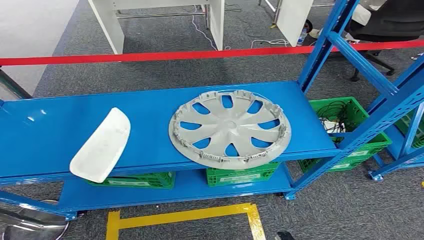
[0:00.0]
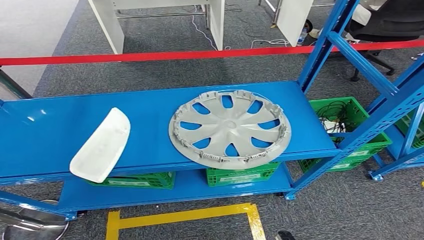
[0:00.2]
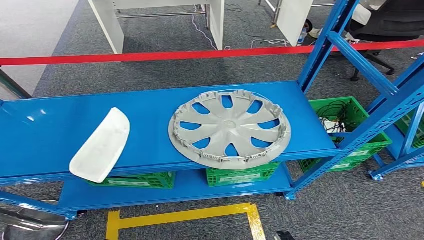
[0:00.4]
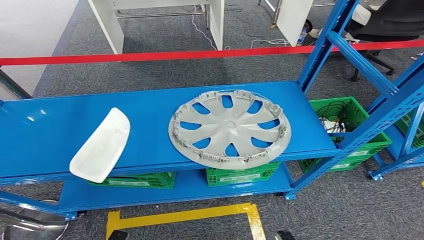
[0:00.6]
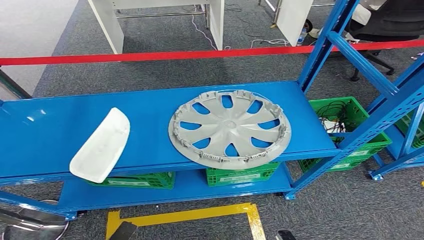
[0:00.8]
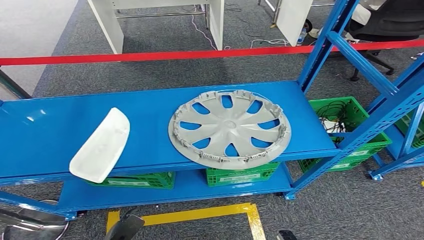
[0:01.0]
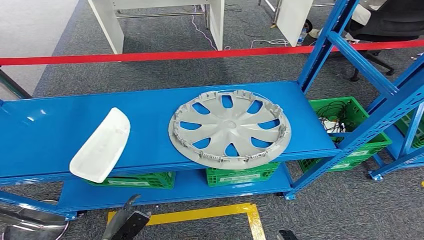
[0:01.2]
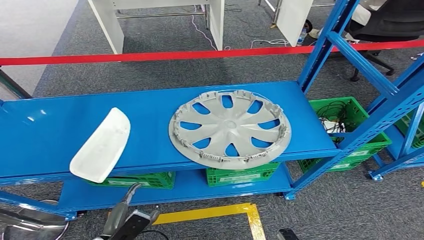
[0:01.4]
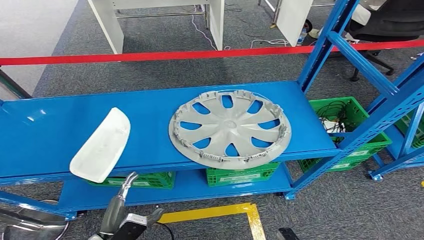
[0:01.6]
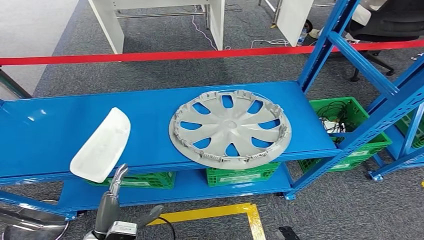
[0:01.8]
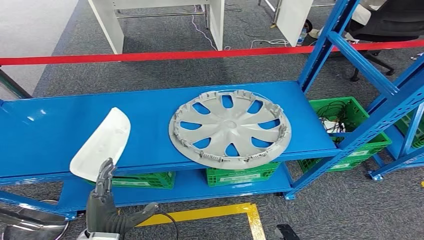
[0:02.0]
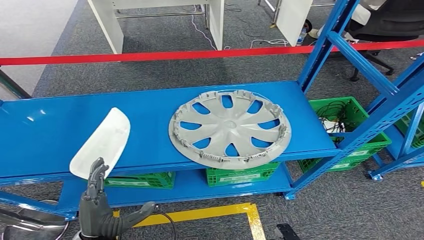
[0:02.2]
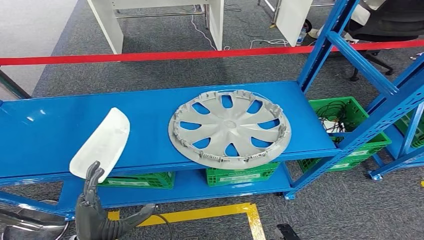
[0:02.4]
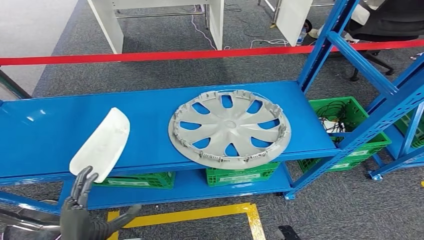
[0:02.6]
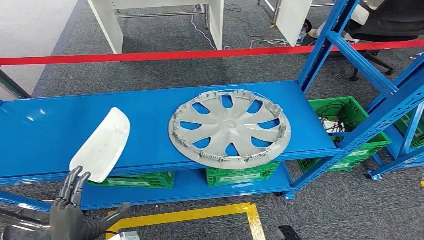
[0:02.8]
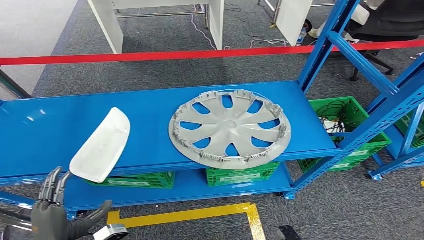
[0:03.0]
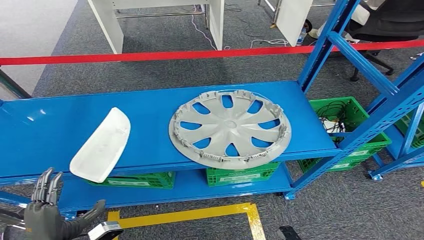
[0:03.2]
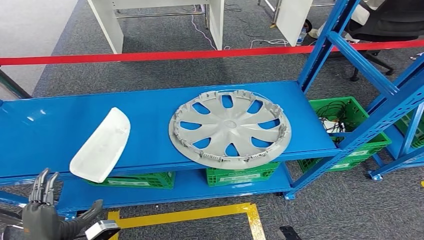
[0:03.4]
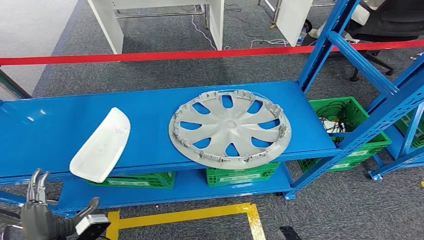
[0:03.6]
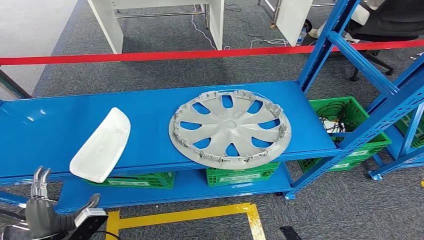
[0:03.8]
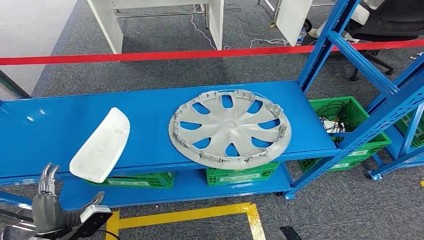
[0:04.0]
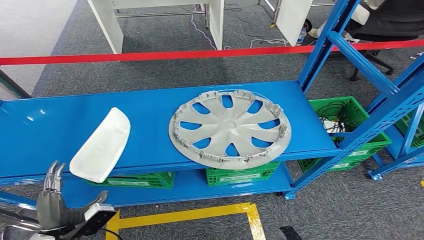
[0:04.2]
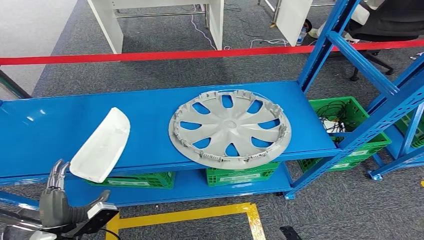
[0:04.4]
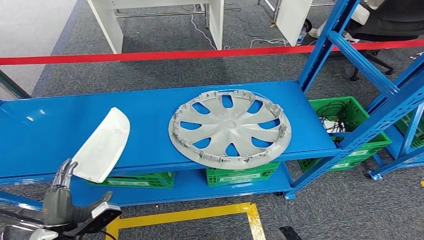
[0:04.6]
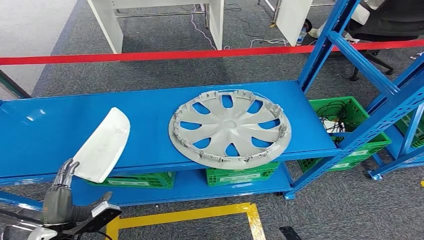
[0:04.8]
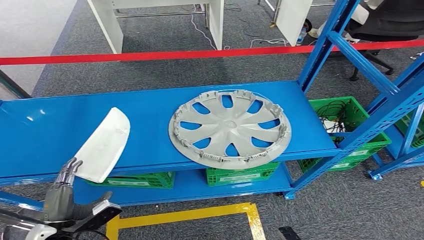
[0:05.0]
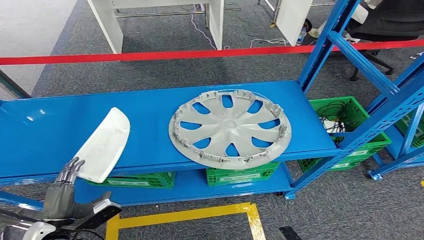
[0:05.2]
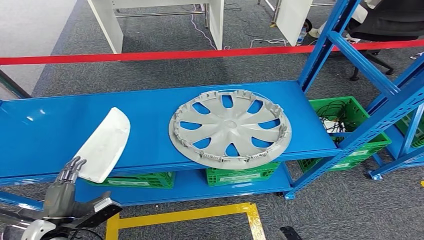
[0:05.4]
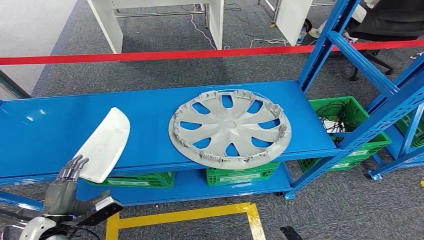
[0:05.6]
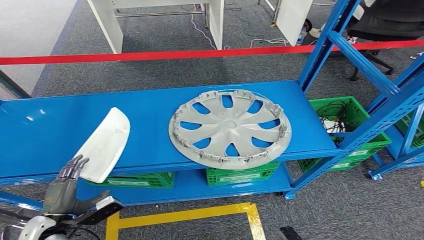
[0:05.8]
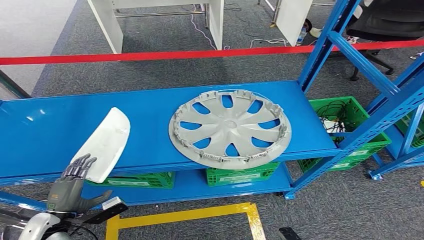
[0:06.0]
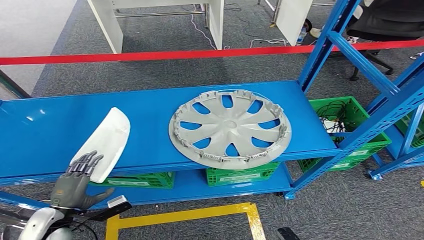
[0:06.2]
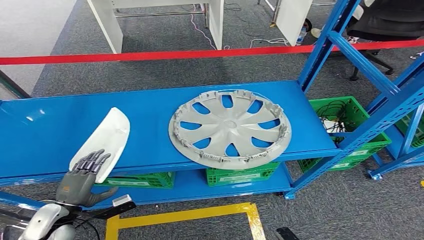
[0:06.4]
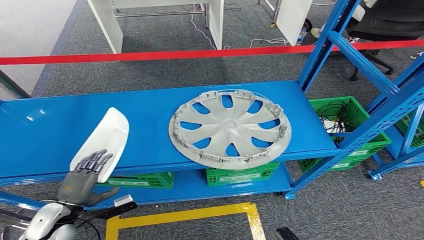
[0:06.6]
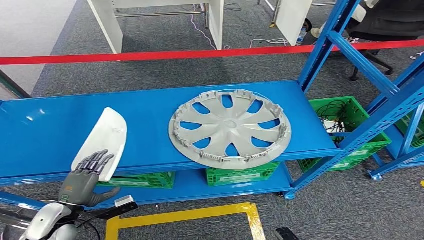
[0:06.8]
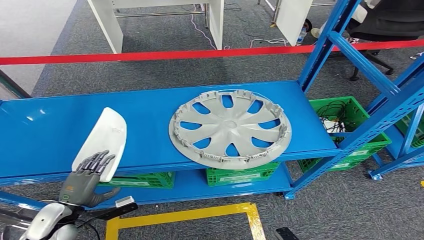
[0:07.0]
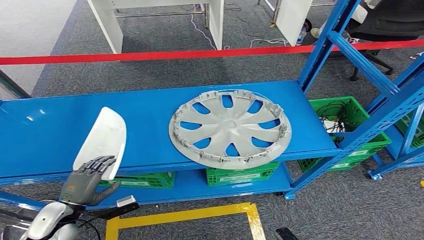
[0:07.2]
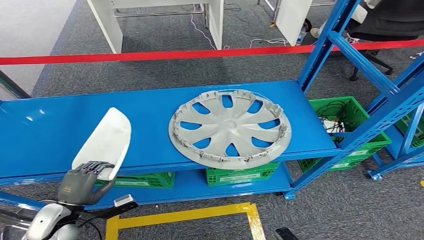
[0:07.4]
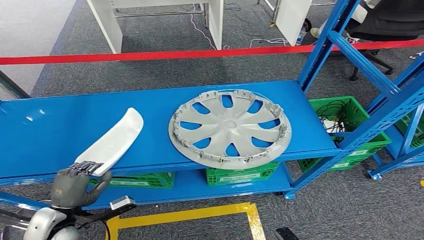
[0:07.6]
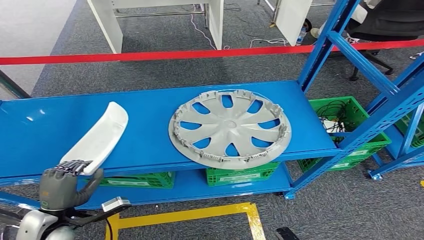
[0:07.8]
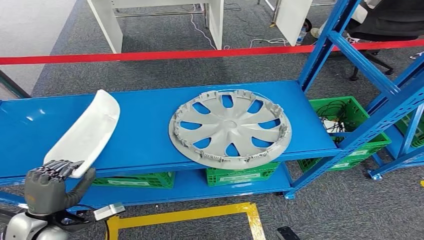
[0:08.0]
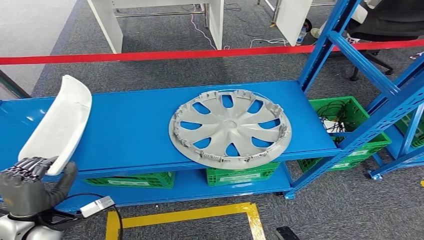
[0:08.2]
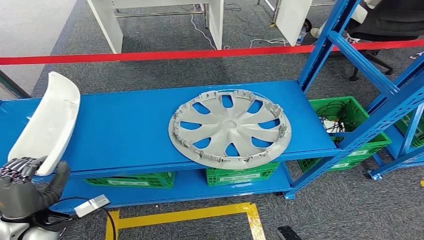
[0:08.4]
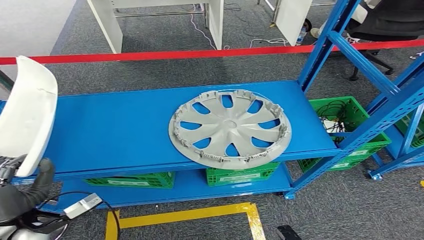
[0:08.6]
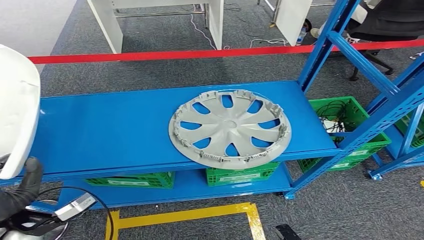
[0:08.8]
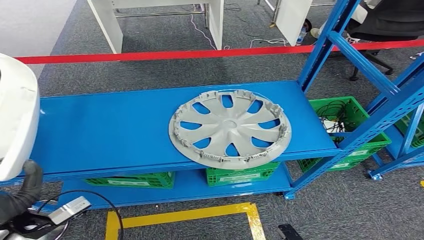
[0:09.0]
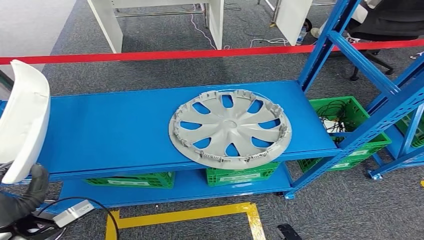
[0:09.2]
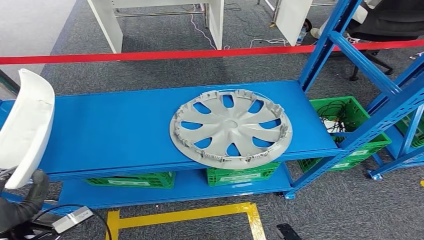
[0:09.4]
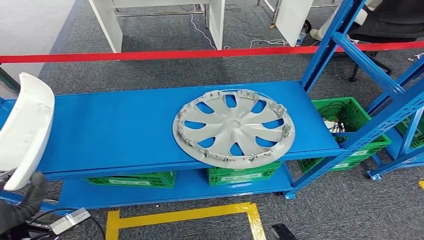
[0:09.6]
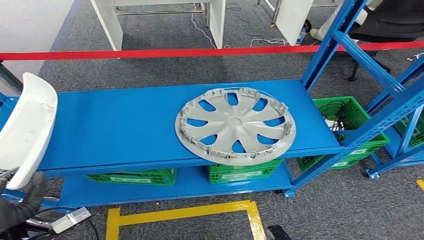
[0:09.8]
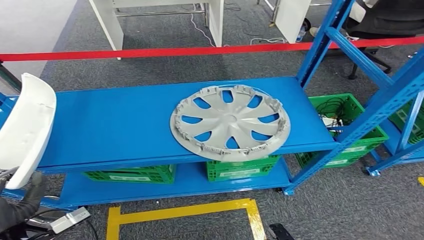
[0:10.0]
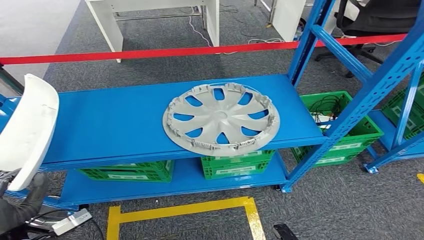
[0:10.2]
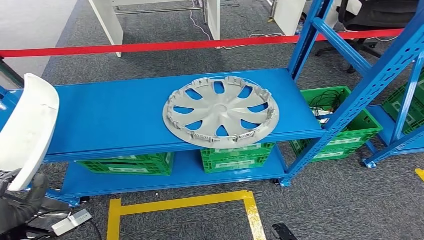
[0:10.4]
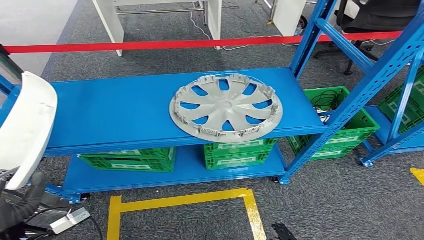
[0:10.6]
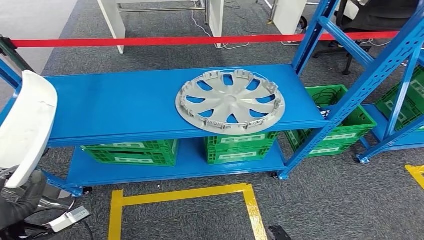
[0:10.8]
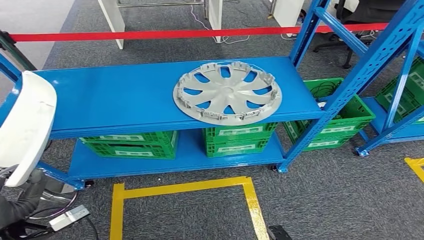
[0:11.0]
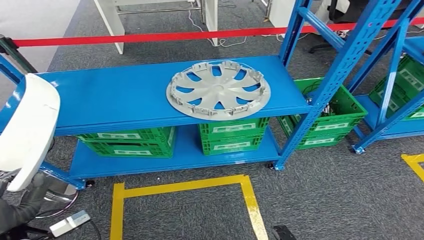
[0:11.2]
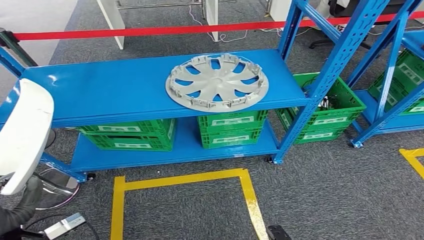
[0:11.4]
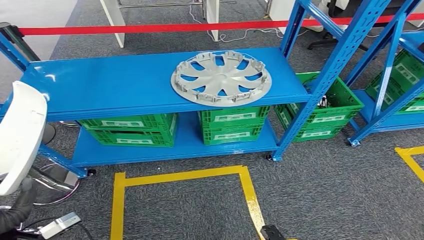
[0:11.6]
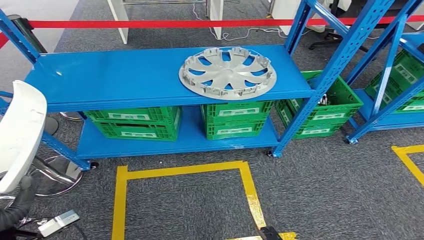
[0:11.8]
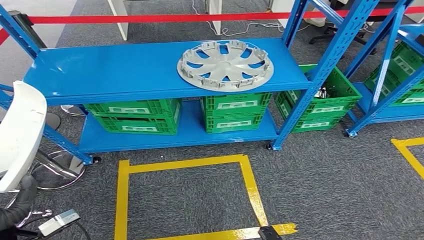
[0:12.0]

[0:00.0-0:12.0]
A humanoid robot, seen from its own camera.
Step, 0:00.0 to 0:09.8: Pick up the small component from the shelf.
0:01.6 to 0:03.0: The left hand is displaced upward and to the left by about 10 cm.
0:03.0 to 0:04.4: The left hand moves approximately 5 cm.
0:04.4 to 0:06.0: The left hand moves roughly 5 cm.
0:06.0 to 0:07.6: There are only small adjustments of the hands.
0:07.6 to 0:09.0: The left hand travels upward by some 10 cm.

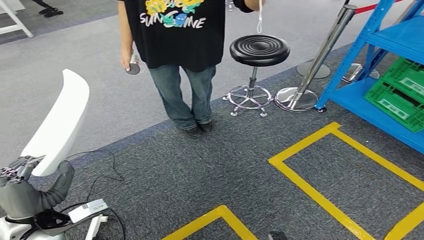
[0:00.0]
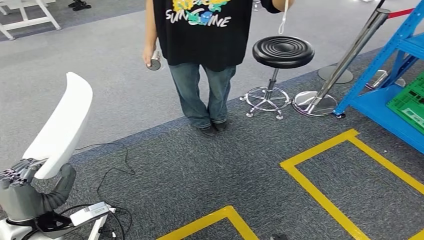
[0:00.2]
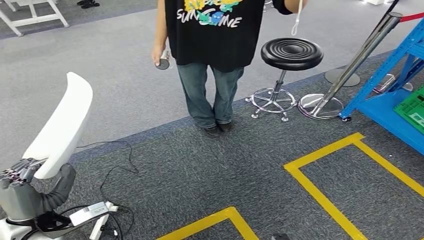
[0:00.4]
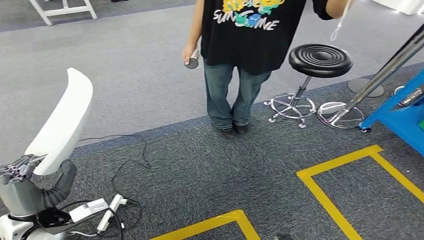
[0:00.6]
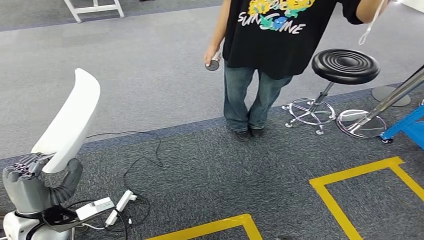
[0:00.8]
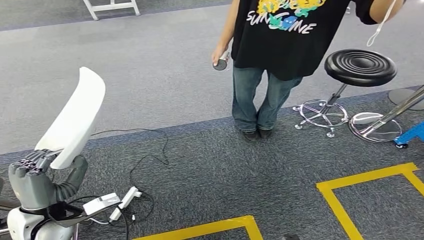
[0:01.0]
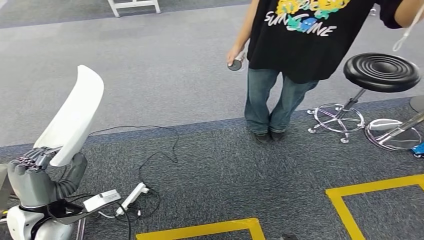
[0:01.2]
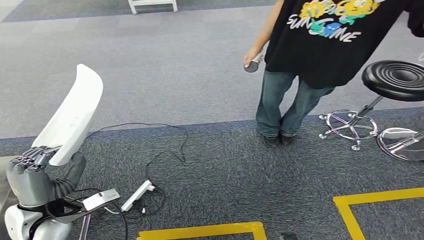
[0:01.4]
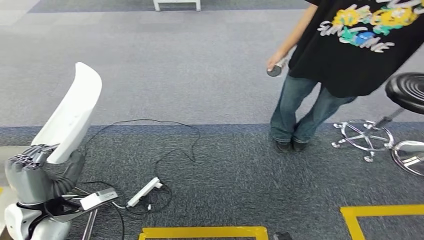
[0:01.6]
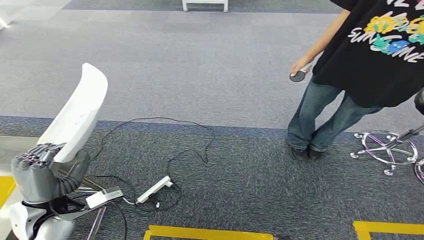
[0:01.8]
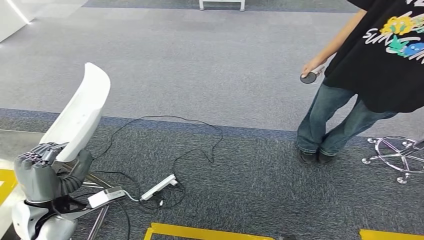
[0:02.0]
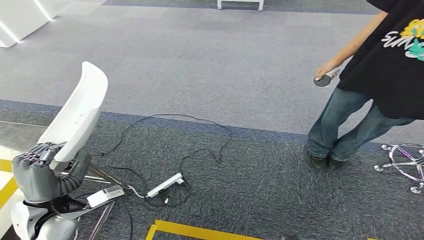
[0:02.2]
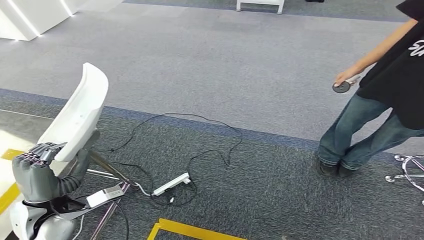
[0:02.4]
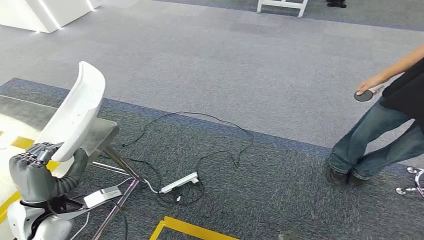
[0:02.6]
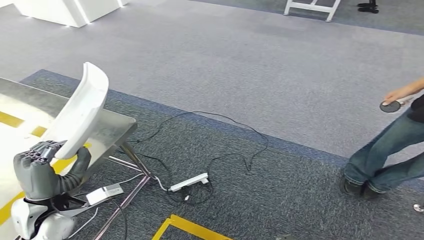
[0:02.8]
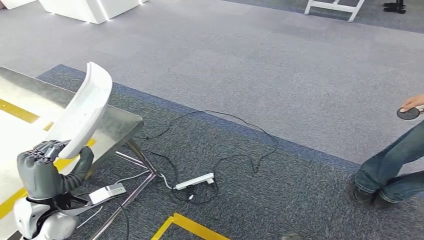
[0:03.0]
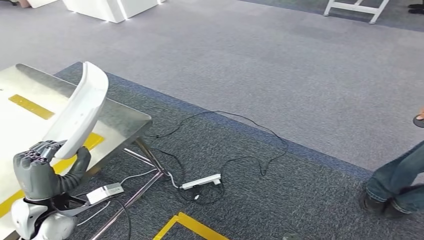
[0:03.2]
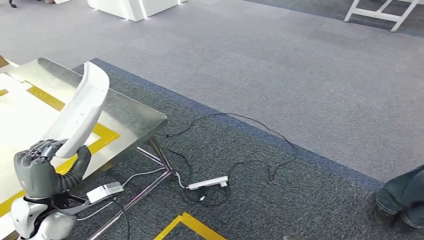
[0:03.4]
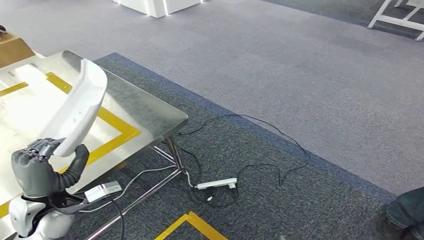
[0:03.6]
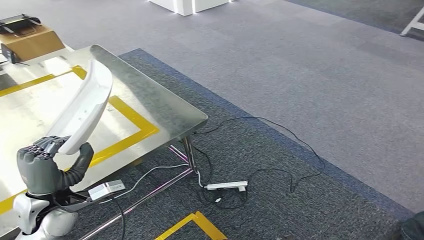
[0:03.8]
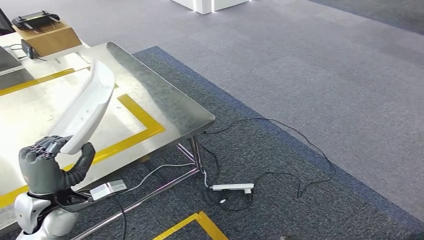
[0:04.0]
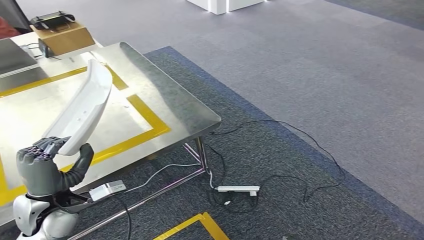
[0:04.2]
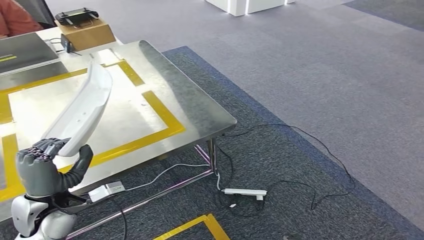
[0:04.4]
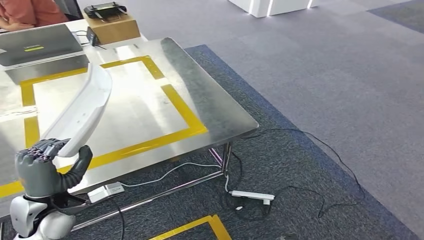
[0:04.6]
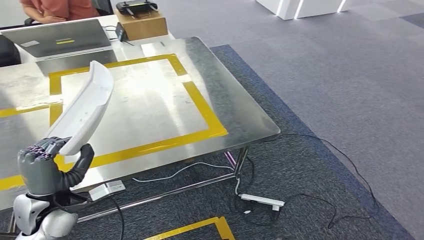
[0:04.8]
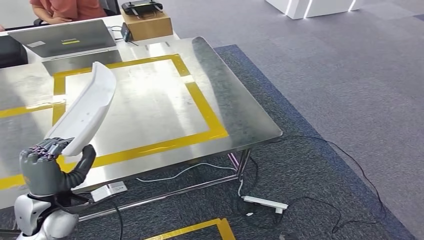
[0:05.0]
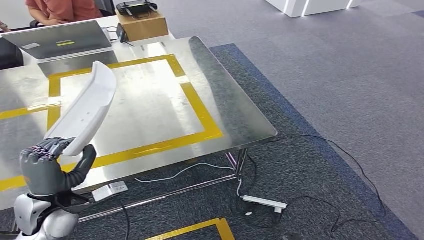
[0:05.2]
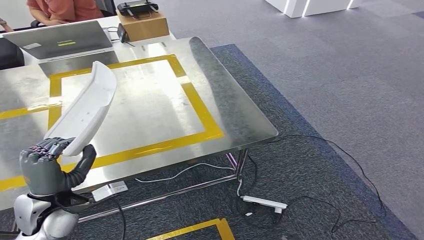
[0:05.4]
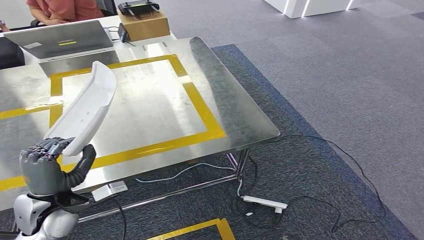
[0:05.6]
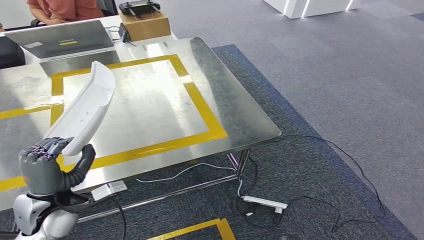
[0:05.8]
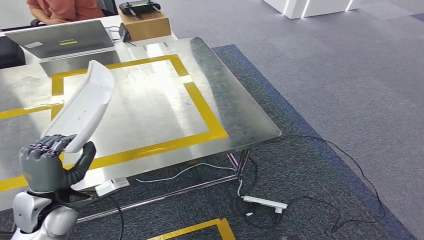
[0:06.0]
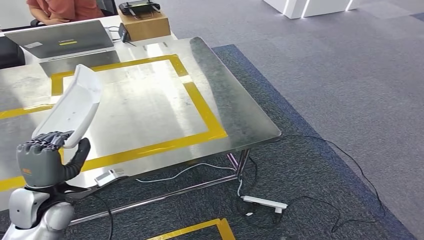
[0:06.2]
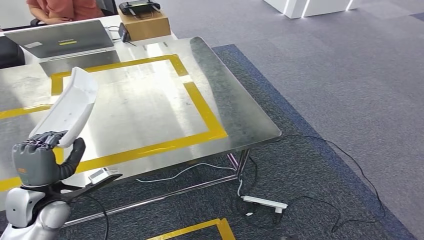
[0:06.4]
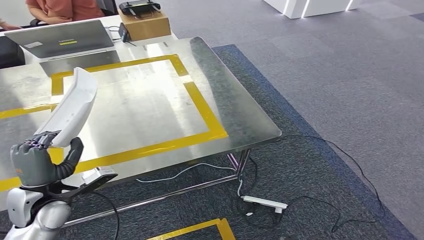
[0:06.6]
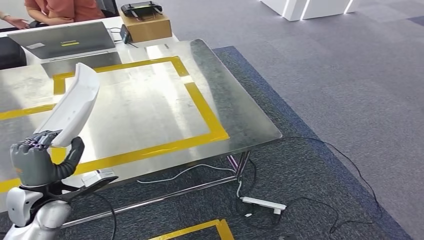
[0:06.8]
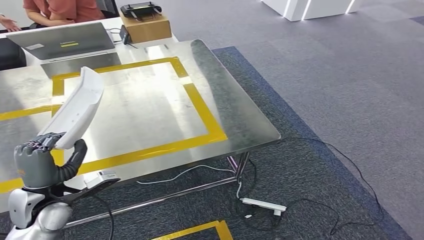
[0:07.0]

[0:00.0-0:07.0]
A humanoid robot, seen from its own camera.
Step, 0:00.0 to 0:04.4: Bring the small component to the front of the workbench.
0:05.6 to 0:07.0: The hands make only small movements.
